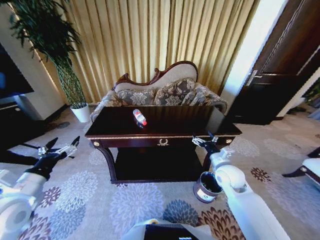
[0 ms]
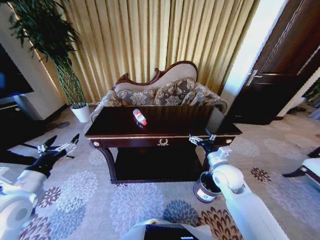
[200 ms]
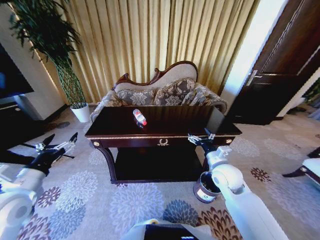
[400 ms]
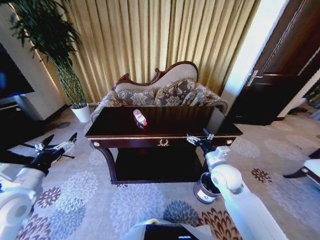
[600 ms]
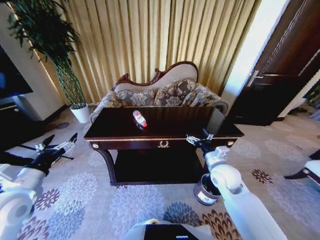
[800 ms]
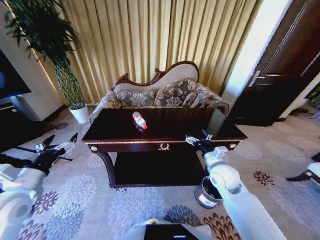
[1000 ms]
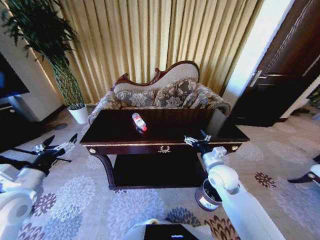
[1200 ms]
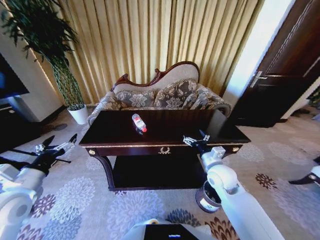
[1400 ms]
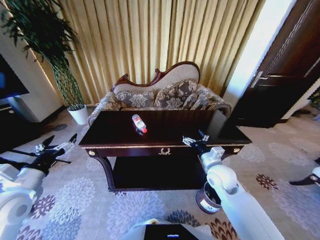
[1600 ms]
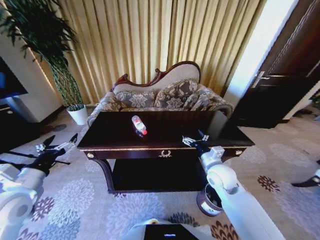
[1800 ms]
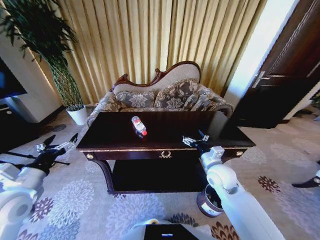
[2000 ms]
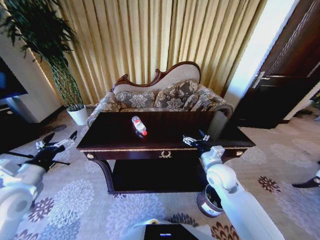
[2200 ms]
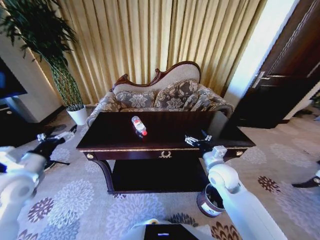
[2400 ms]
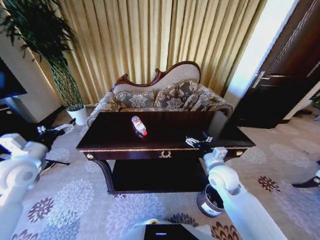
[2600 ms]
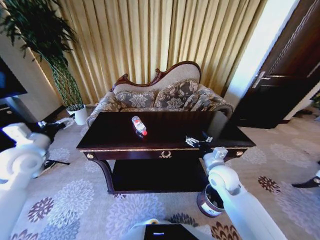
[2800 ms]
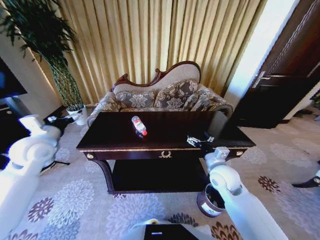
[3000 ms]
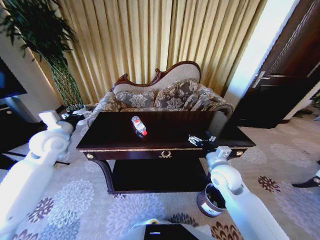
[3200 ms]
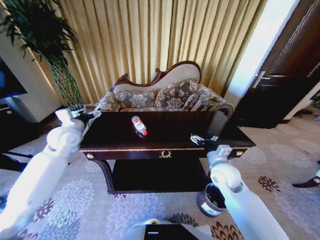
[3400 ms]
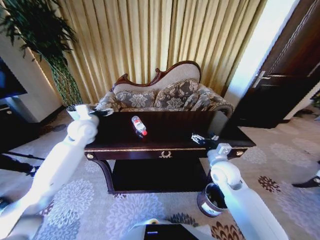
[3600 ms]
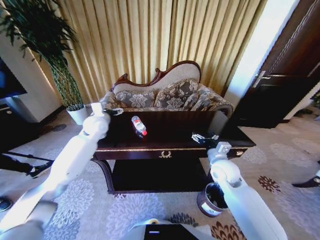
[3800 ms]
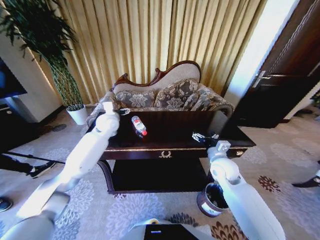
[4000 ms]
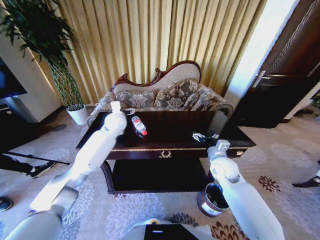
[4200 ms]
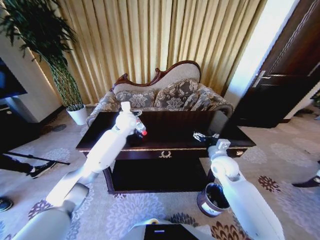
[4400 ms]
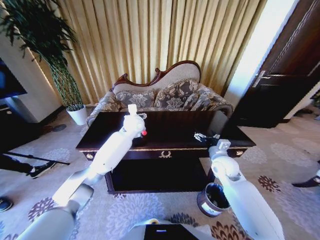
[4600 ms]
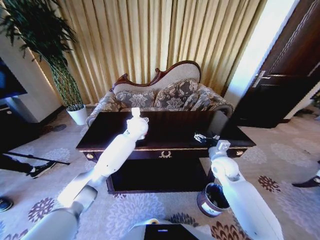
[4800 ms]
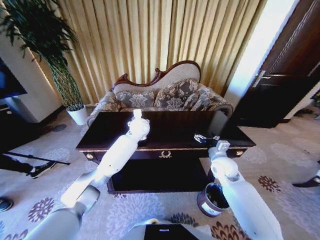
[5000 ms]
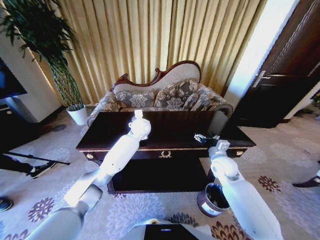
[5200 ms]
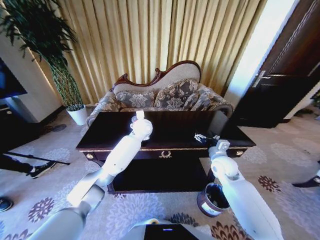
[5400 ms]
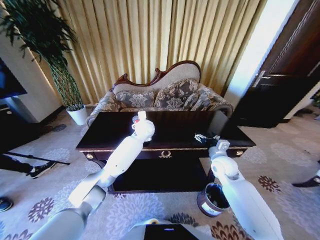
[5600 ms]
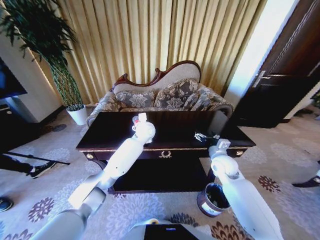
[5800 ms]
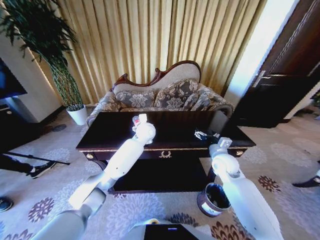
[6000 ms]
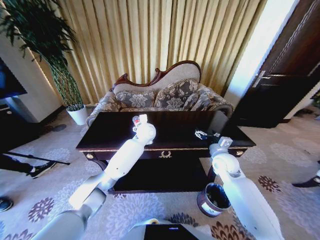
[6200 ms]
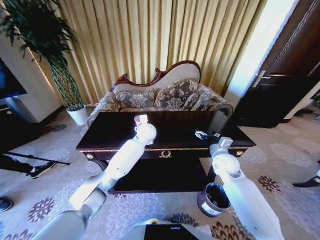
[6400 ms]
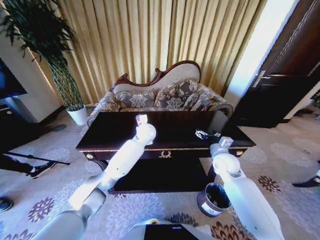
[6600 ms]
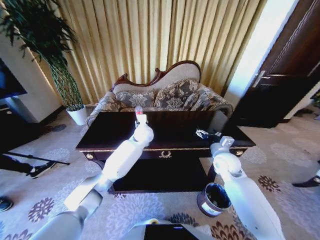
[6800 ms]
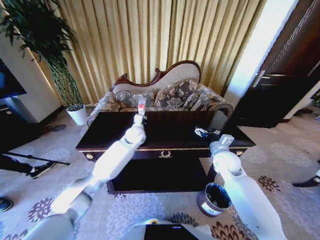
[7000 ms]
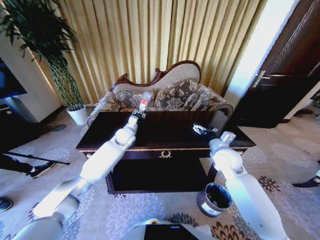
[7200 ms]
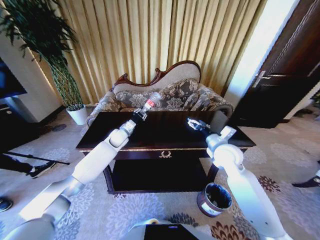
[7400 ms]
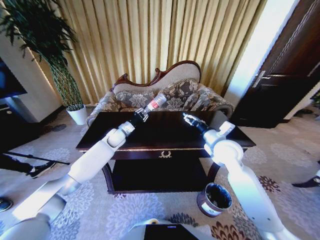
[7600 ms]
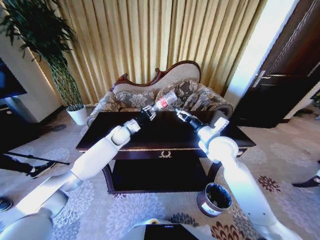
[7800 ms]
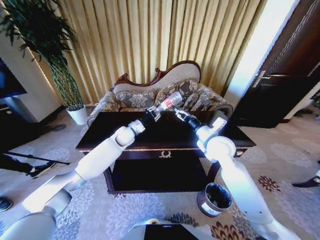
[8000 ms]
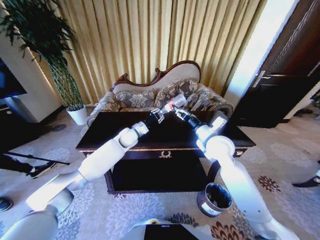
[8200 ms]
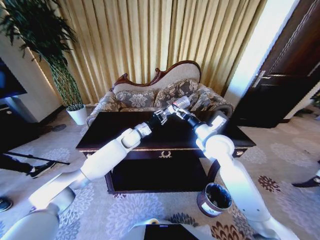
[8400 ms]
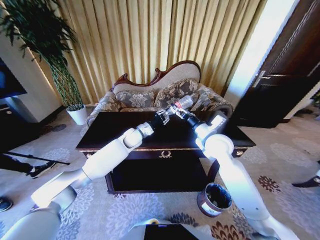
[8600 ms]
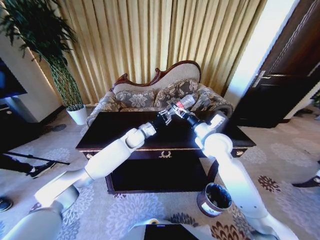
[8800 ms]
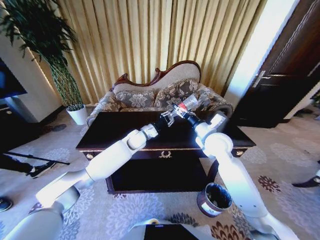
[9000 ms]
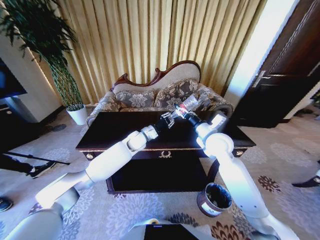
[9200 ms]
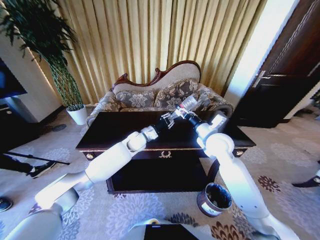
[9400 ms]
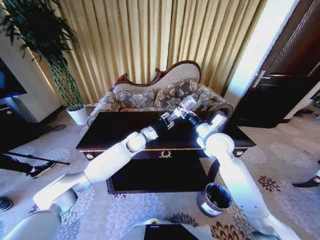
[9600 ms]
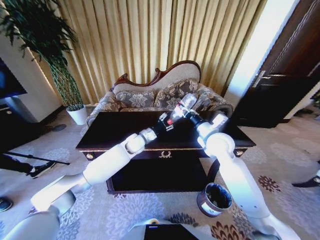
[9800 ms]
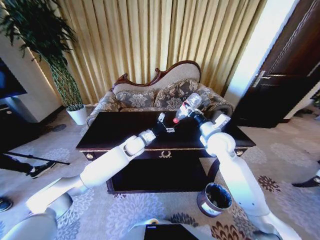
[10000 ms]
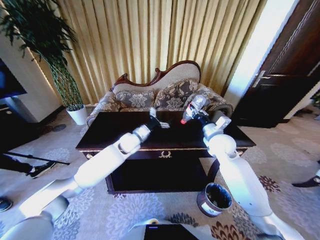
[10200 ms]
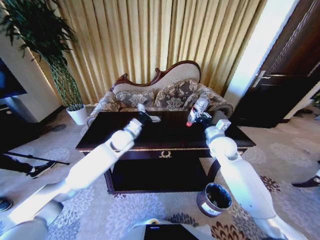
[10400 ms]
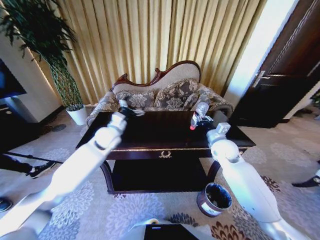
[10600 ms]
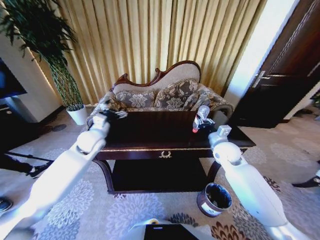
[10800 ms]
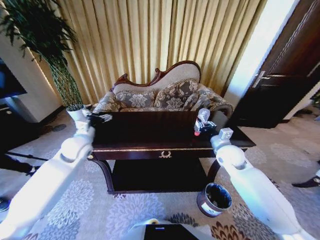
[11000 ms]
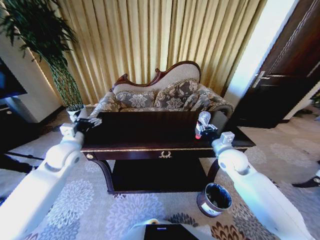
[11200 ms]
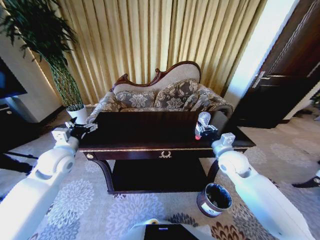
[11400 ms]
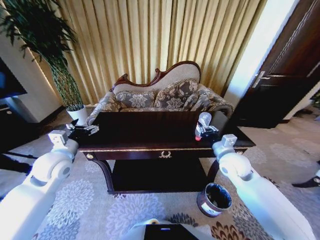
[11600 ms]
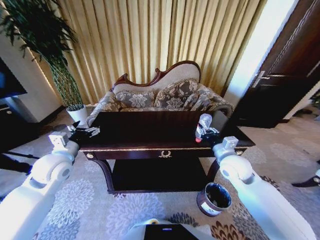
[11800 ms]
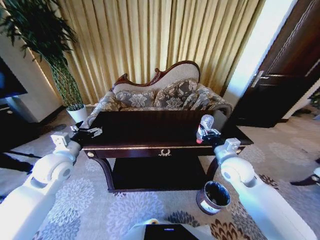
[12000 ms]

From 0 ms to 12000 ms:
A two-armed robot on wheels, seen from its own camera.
Task of the whole recording: Move to the front of the table and place the trash on the table into the trash bin.
From 1600 ms to 3000 ms: The left gripper shifts some 15 cm forward.
From 3000 ms to 4400 ms: The left gripper moves to the right and forward, roughly 30 cm. The right gripper goes about 5 cm forward.
From 4400 ms to 6000 ms: The left gripper shifts approximately 10 cm to the right.
From 6000 ms to 7600 ms: The right gripper heads upward, covering roughly 10 cm; the left gripper heads to the left, covering roughly 15 cm, and closes.
From 7600 ms to 9000 ms: The left gripper moves to the right, some 10 cm.
From 9000 ms to 10400 ms: The right gripper shifts by some 5 cm, and closes. Meanwhile the left gripper heads to the left, covering roughly 5 cm, and opens its fingers.
From 10400 ms to 12000 ms: The left gripper shifts about 25 cm to the left and backward; the right gripper heads backward, covering approximately 10 cm.

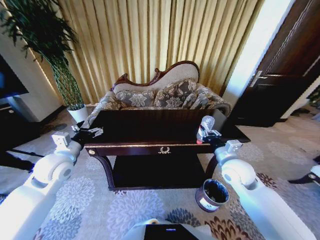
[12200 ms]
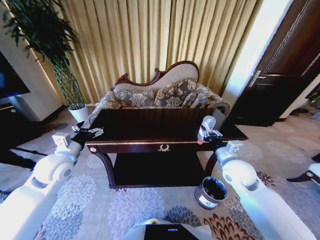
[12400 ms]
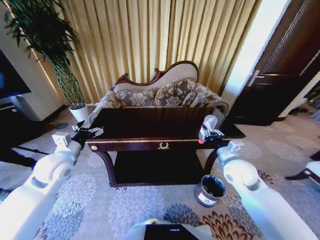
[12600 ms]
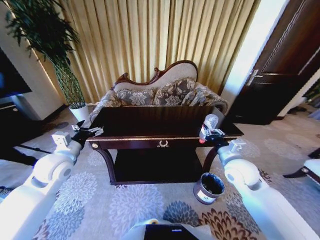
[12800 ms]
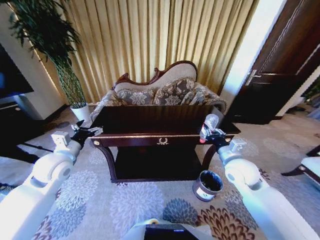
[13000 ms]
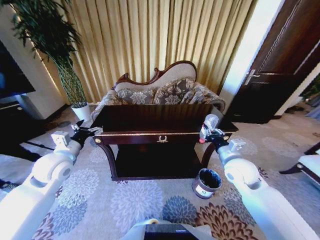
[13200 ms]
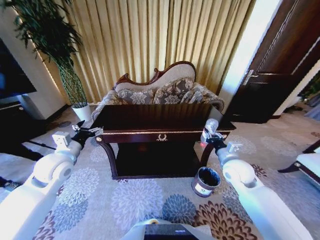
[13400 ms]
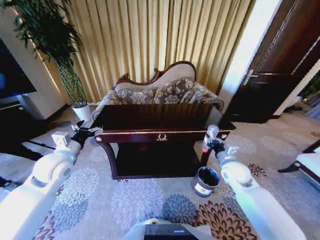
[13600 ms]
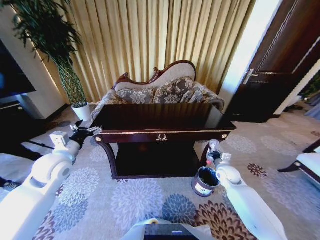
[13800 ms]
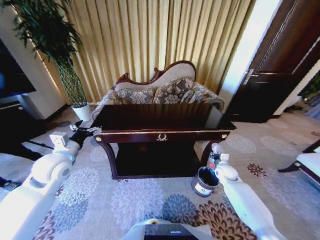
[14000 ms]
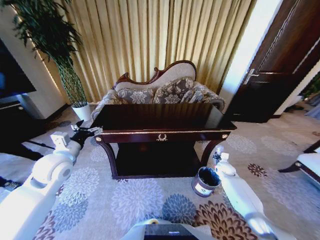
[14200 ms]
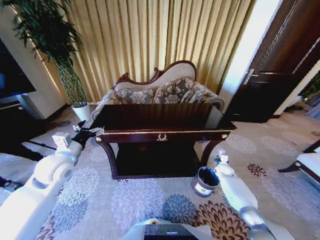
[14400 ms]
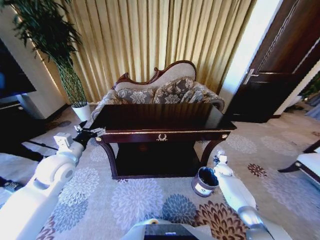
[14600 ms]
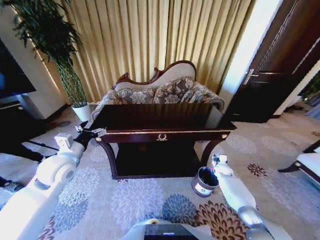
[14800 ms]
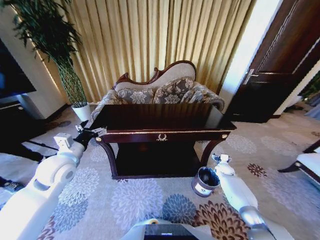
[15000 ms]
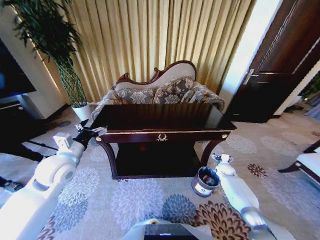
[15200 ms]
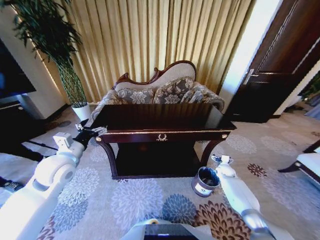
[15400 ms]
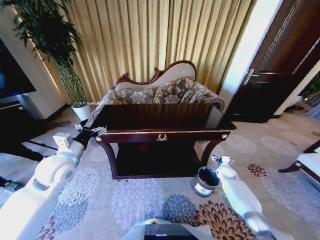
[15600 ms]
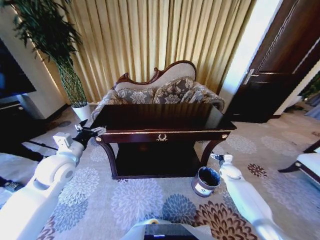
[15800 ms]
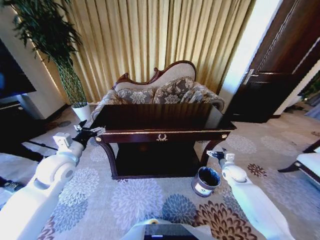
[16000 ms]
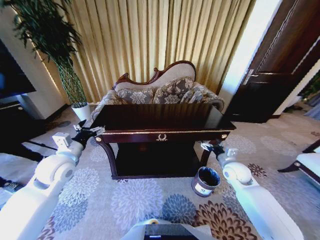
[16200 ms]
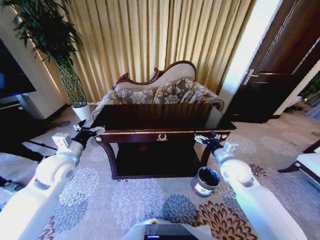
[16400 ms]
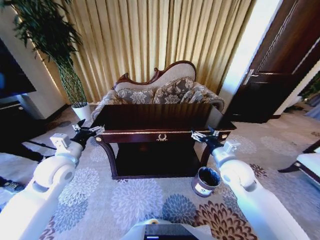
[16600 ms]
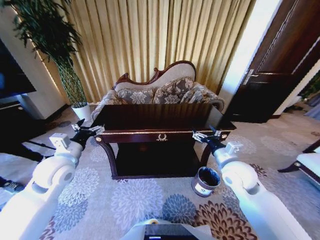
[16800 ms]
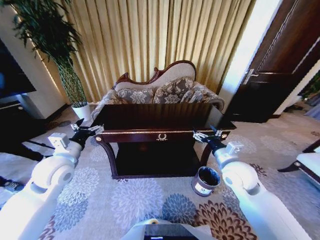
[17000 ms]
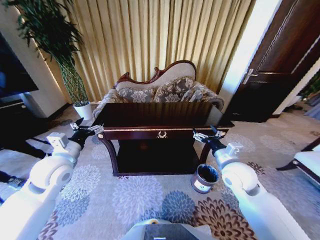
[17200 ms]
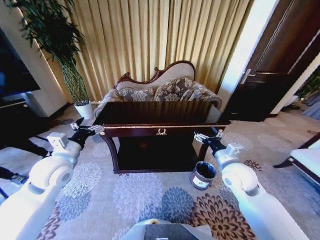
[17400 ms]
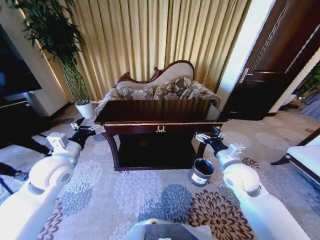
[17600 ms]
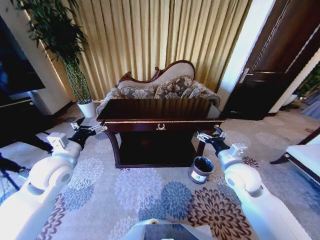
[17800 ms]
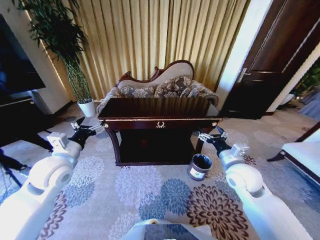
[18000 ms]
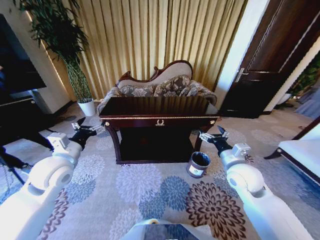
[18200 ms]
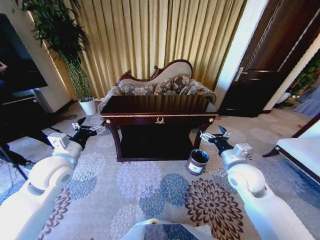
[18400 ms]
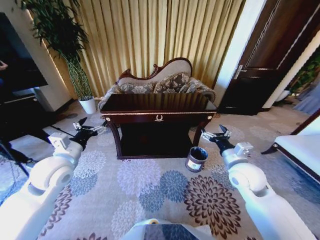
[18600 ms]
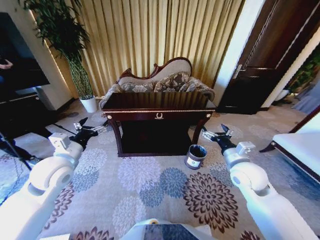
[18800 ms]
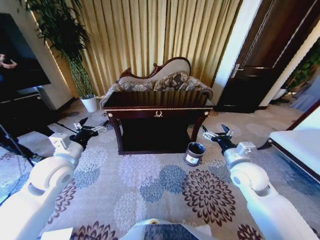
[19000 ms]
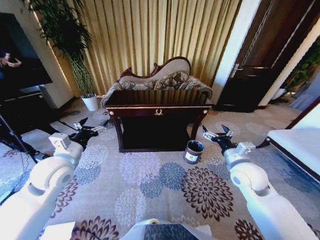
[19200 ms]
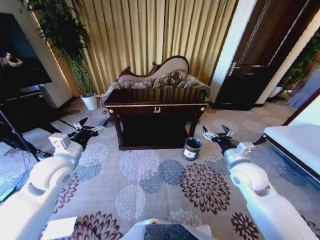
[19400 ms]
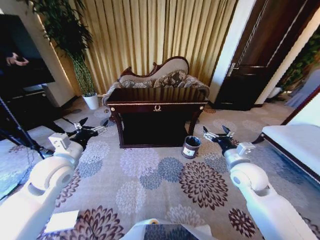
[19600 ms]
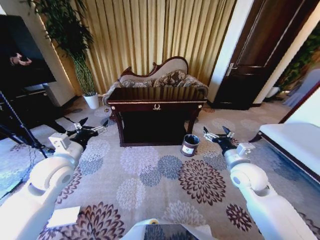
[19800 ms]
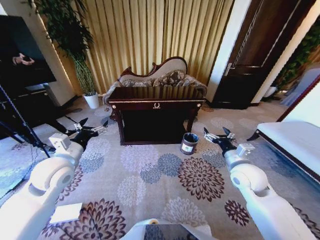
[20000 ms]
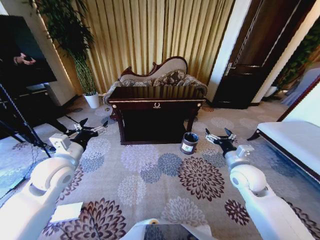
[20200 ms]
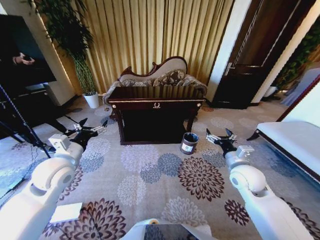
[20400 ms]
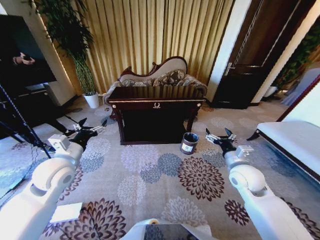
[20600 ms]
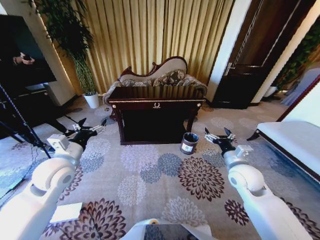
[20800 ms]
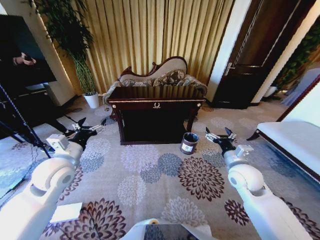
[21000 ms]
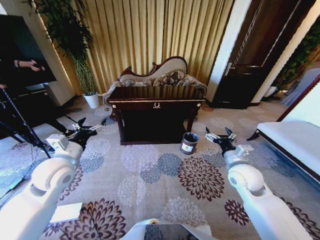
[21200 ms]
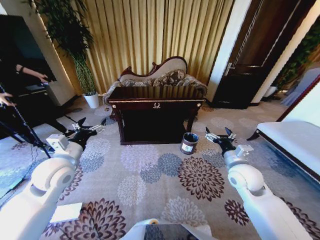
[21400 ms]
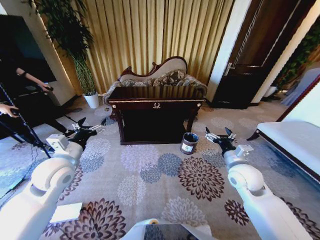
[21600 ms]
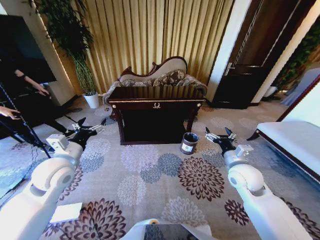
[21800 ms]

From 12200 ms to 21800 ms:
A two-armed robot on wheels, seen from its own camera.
Task of the whole recording: Move to the front of the table and place the trash on the table into the trash bin.
From 12200 ms to 13800 ms: The right gripper moves downward and to the right, approximately 15 cm.
From 13800 ms to 15400 ms: The right gripper moves downward, to the right and forward, some 15 cm, and opens its fingers.
From 15400 ms to 17000 ms: The right gripper goes roughly 35 cm upward, to the left and backward.
From 20200 ms to 21800 ms: Both grippers stay about where they are.
